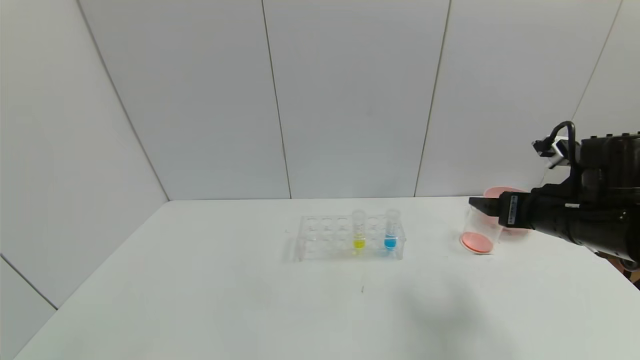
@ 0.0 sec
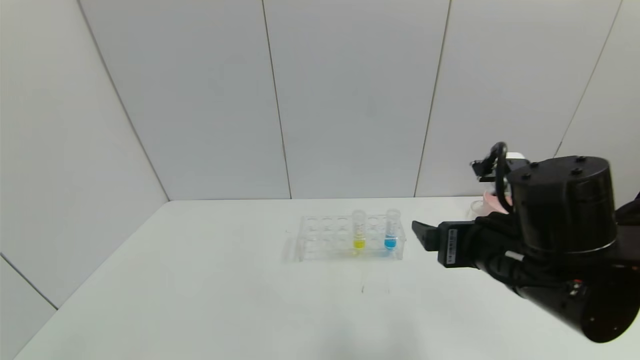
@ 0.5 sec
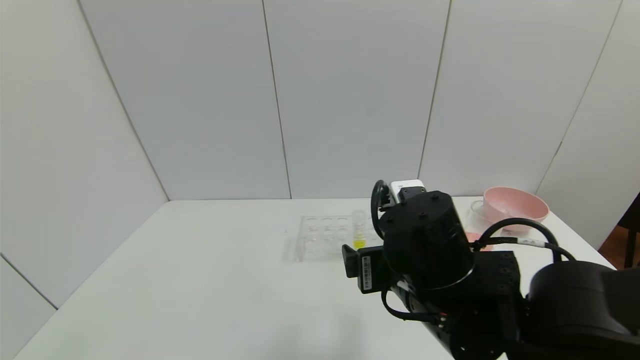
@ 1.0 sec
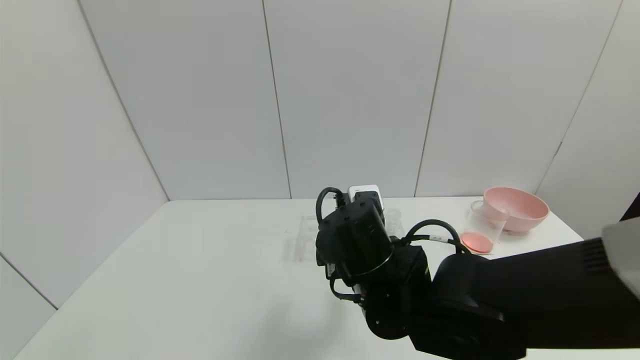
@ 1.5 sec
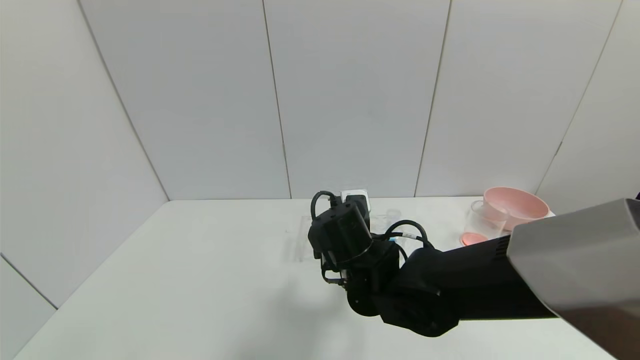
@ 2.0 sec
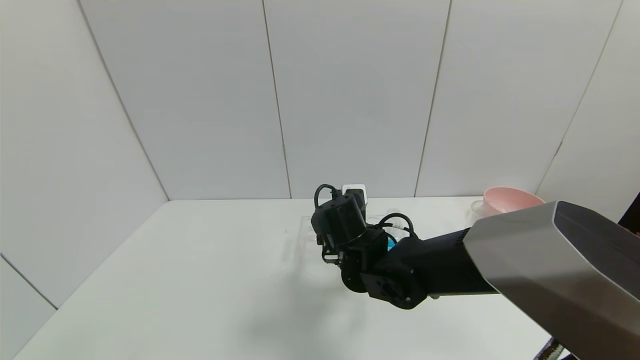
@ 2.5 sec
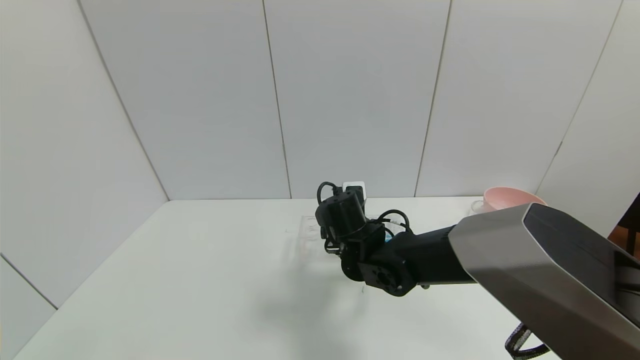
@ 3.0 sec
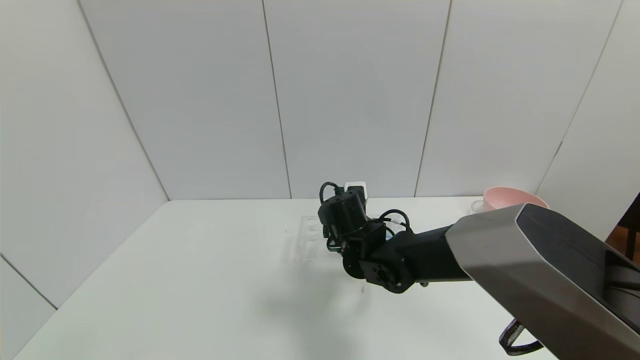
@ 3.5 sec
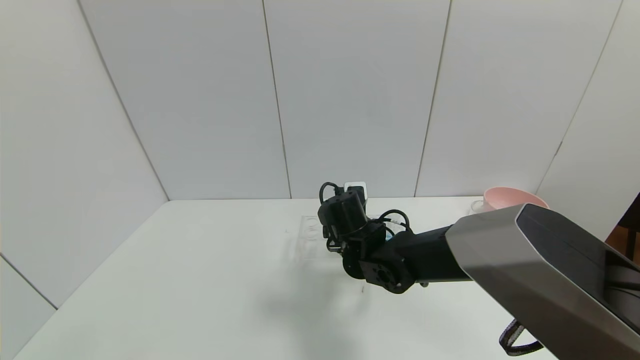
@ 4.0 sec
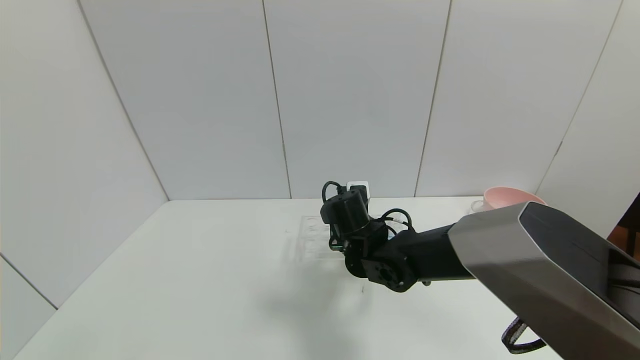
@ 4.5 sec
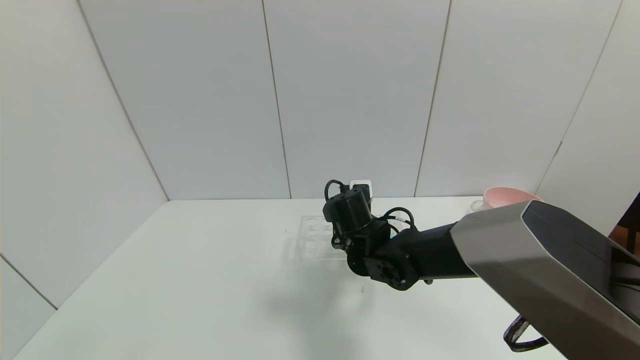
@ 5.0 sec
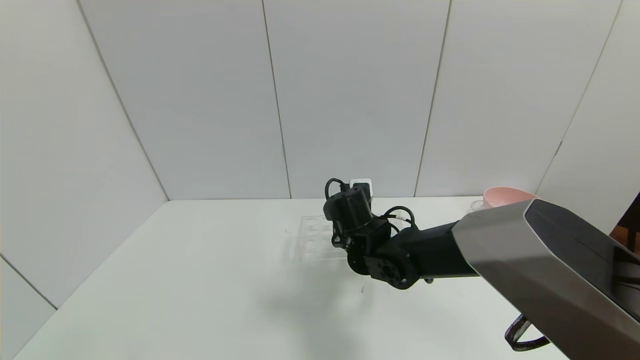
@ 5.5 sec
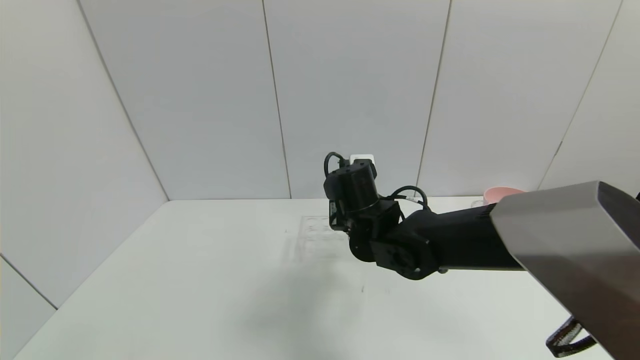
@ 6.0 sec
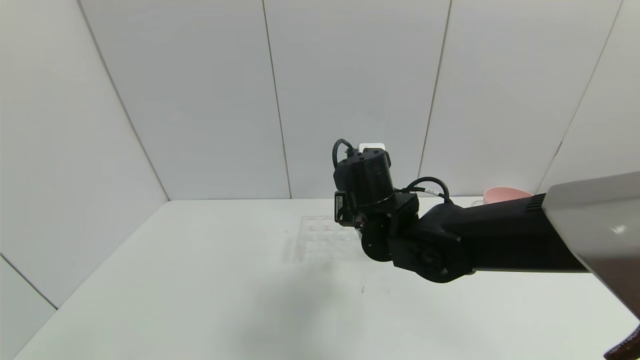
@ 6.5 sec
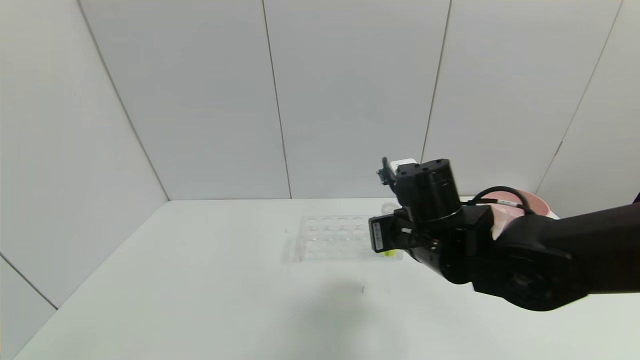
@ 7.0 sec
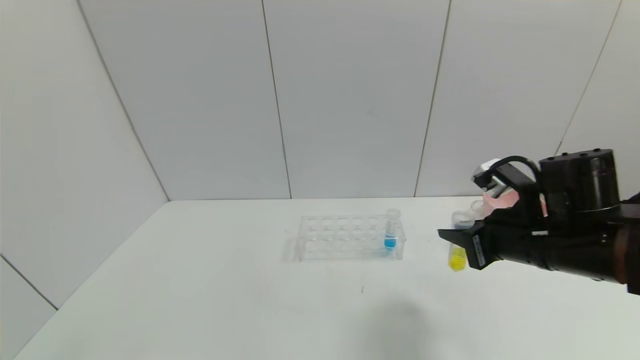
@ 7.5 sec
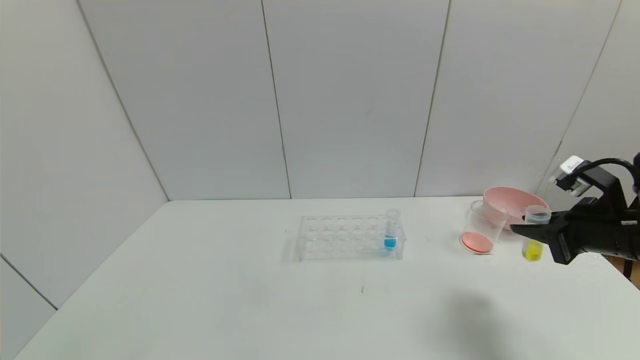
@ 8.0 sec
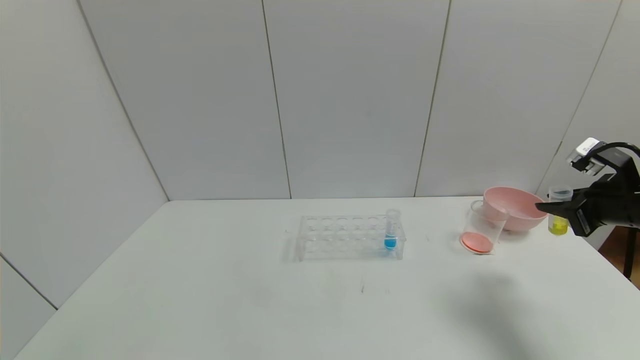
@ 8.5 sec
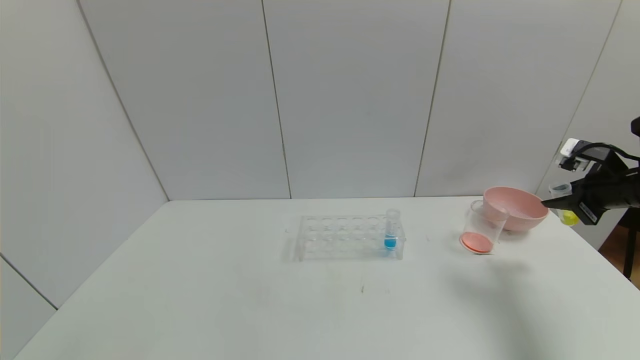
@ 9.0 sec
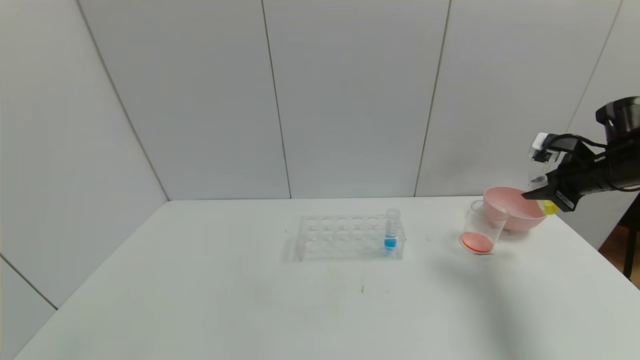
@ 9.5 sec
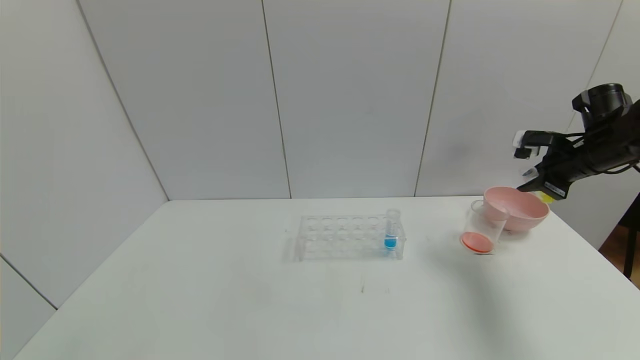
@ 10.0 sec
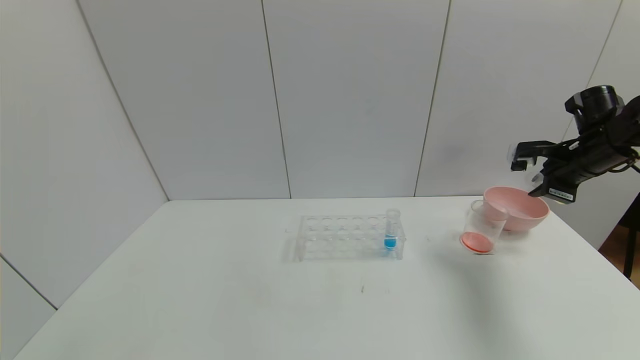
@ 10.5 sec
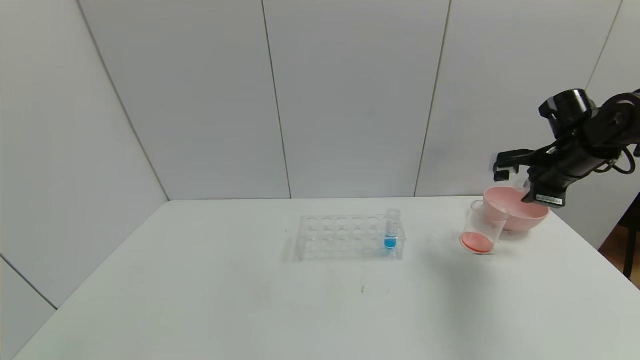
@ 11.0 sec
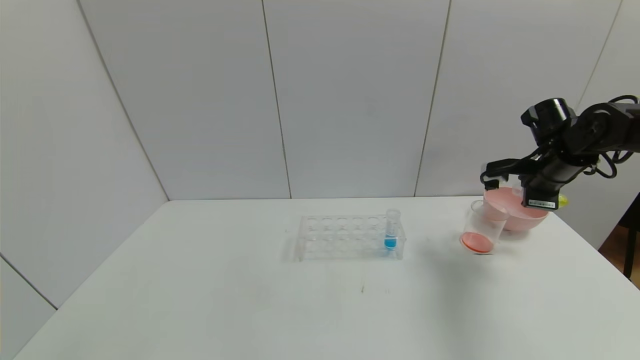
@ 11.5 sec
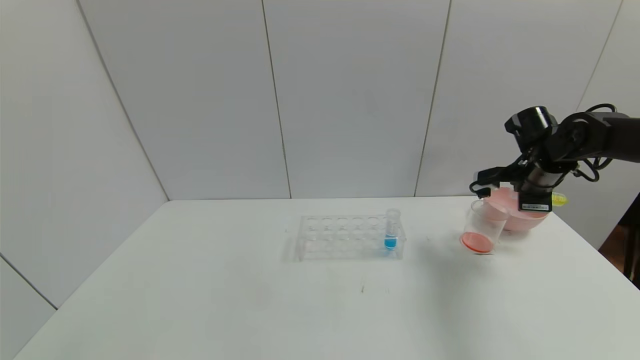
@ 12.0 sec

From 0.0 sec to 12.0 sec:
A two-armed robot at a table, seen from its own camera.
Task of the whole recording: pick up the test tube with yellow pigment and the test tube with red pigment by grippers and pour them into the beaker.
Step, from 0.0 sec to 5.0 sec: Grasp the yellow reagent with the right gripper.
From 0.0 sec to 2.0 sec: The right gripper goes approximately 25 cm to the left.
From 2.0 sec to 4.0 sec: The right gripper shifts some 5 cm forward.
From 4.0 sec to 6.0 sec: The right gripper is displaced upward by roughly 5 cm, and closes.
From 6.0 sec to 8.0 sec: The right gripper shifts about 30 cm to the right.
From 8.0 sec to 10.0 sec: The right gripper is displaced forward by about 15 cm.
From 10.0 sec to 12.0 sec: The right gripper is displaced to the left by some 5 cm.

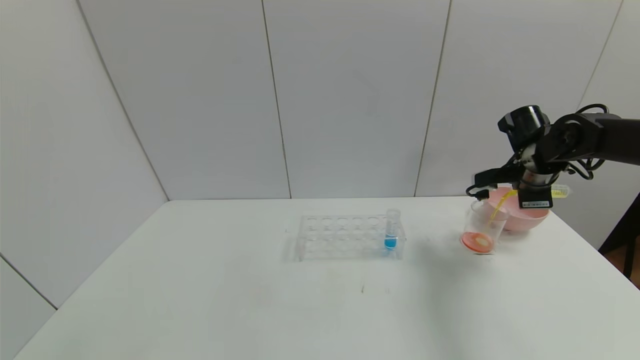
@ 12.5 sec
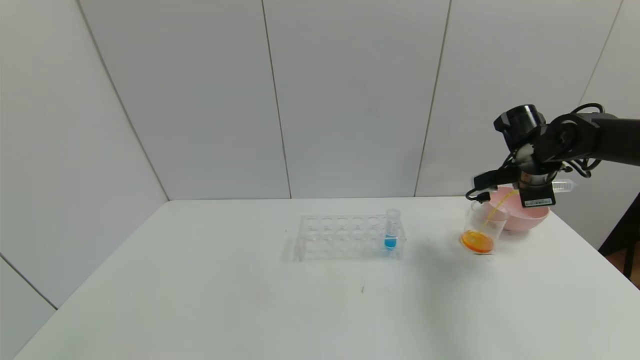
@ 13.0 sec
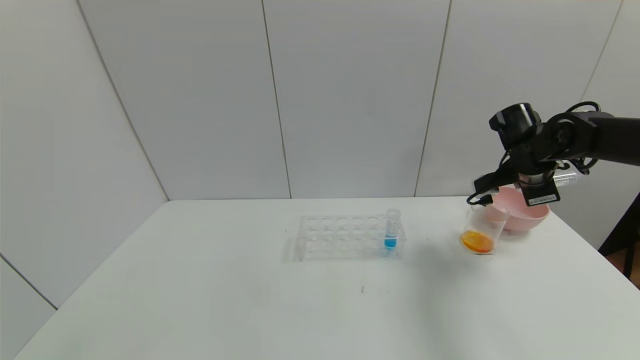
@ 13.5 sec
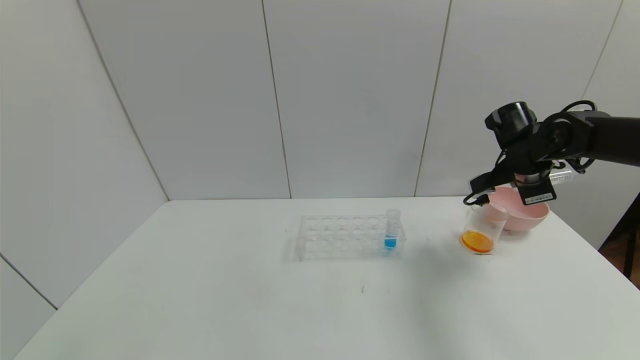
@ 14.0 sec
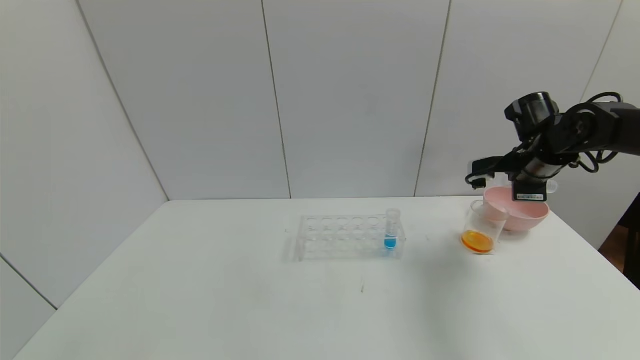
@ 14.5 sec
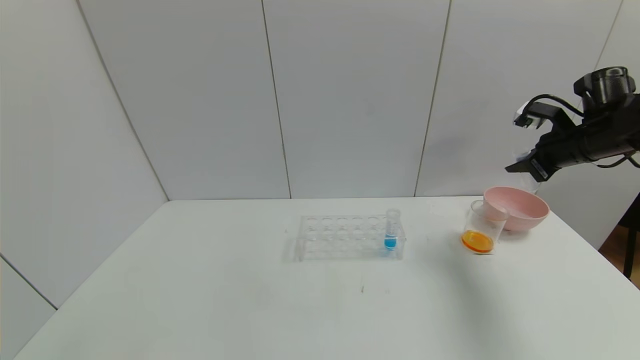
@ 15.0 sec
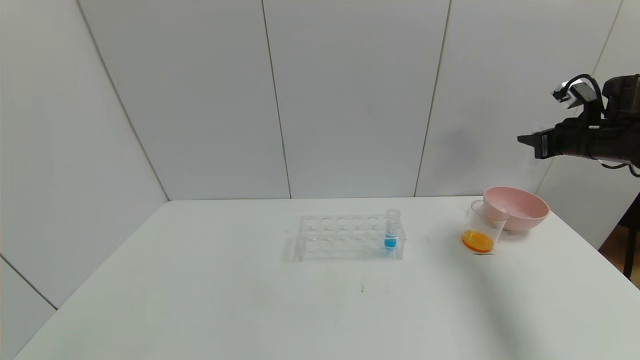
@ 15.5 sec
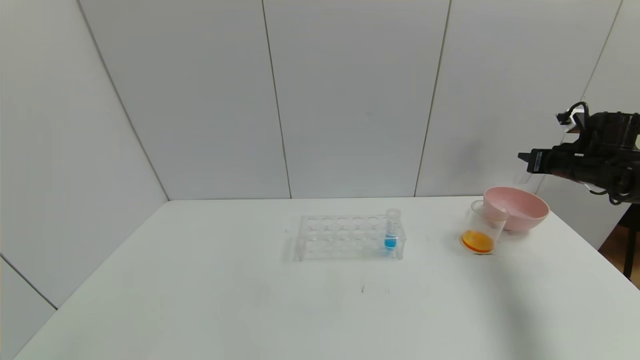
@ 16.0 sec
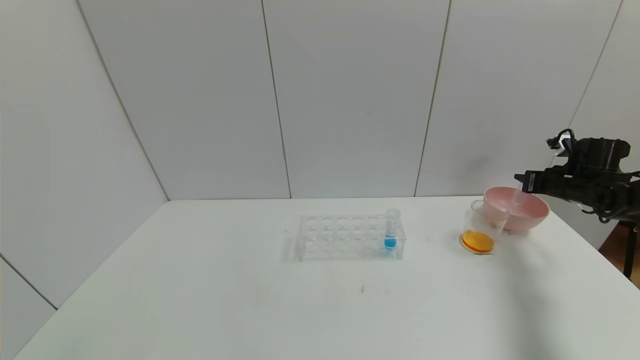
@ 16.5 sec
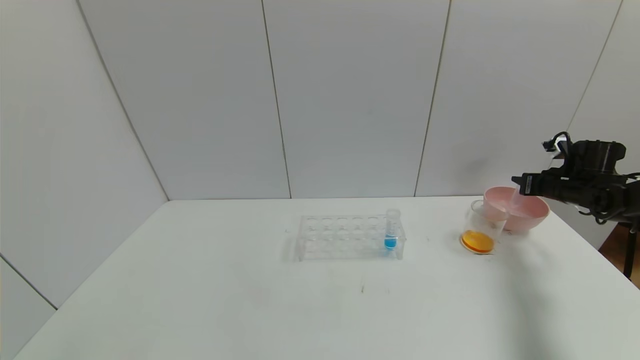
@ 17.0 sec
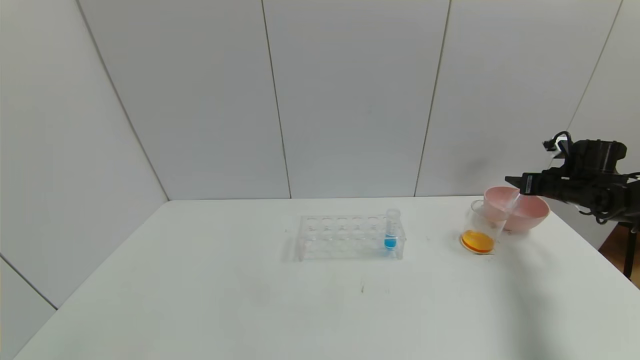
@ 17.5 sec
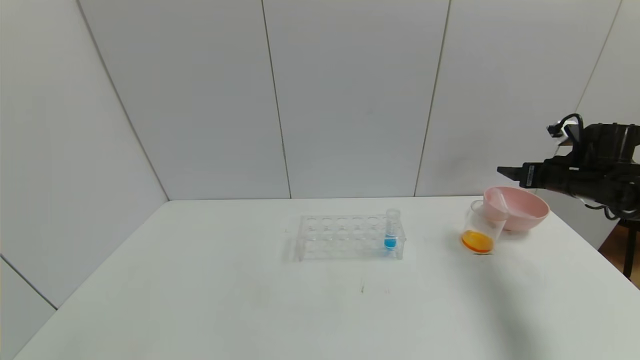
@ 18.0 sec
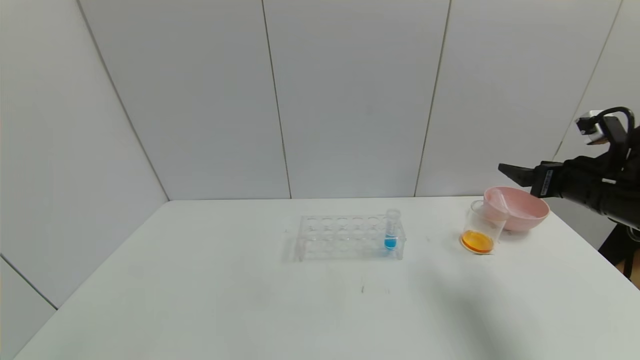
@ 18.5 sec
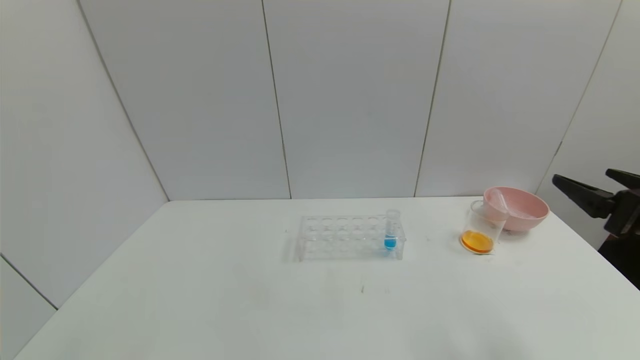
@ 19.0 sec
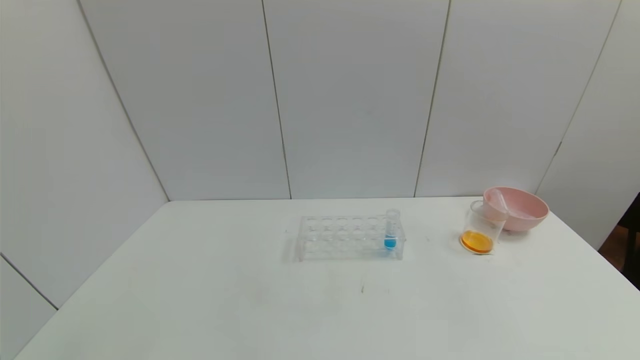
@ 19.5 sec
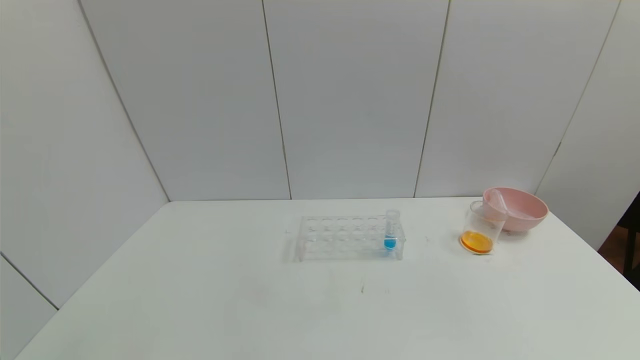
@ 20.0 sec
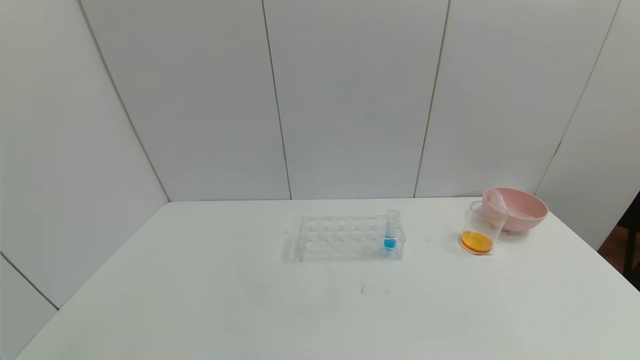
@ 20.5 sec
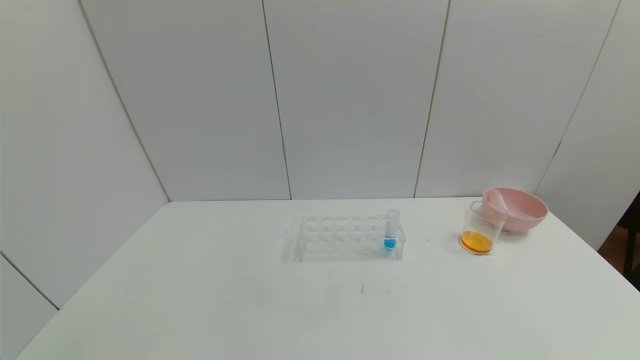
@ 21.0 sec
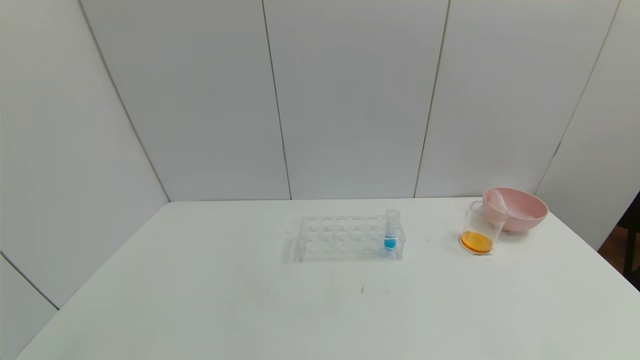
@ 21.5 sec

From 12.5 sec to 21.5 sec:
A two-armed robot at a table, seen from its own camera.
Task of the whole recording: pick up the test tube with yellow pigment and the test tube with red pigment by grippers and pour them into the beaker.
Step, from 14.0 sec to 17.0 sec: Place the test tube into the bowl with the right gripper.
From 12.5 sec to 14.5 sec: There are only small adjustments of the grippers.
From 14.5 sec to 17.0 sec: The right gripper moves to the right and downward, approximately 15 cm.
From 17.0 sec to 19.5 sec: The right gripper moves backward, some 35 cm, and opens.
